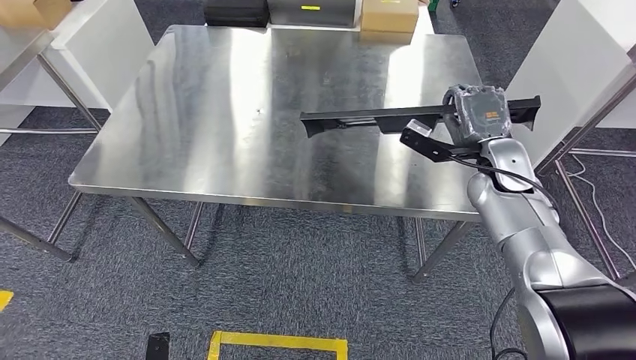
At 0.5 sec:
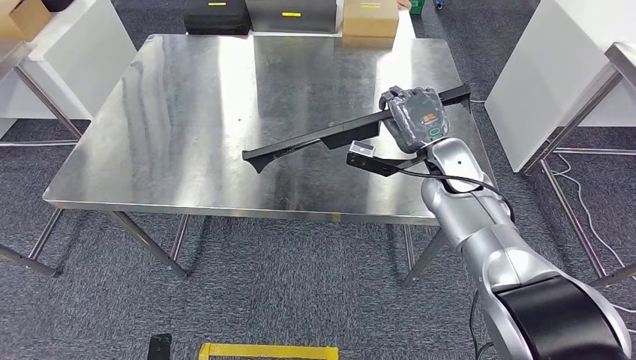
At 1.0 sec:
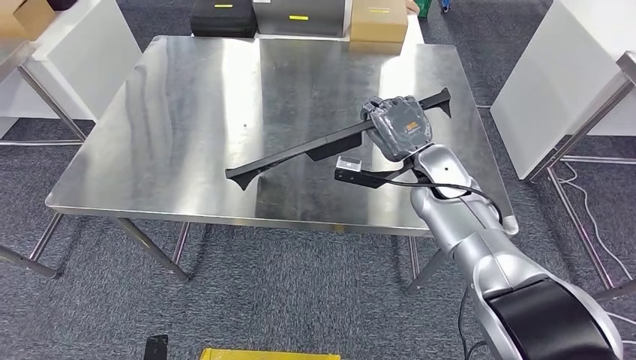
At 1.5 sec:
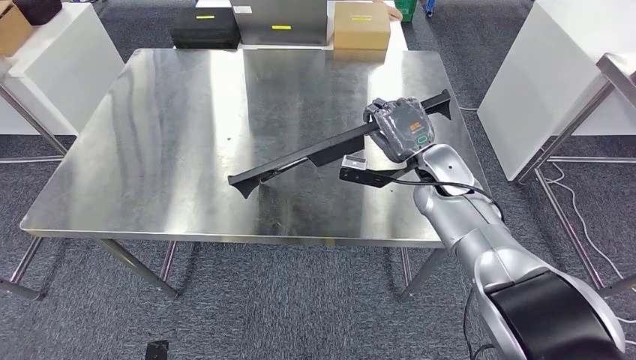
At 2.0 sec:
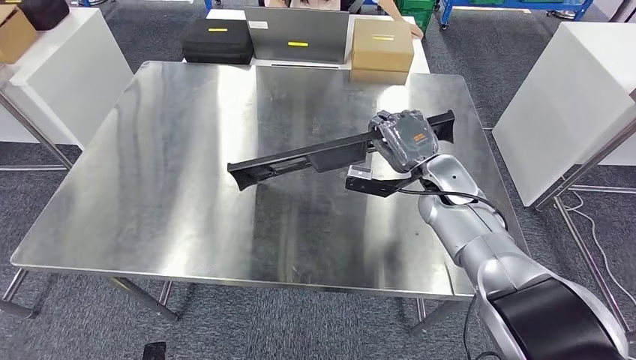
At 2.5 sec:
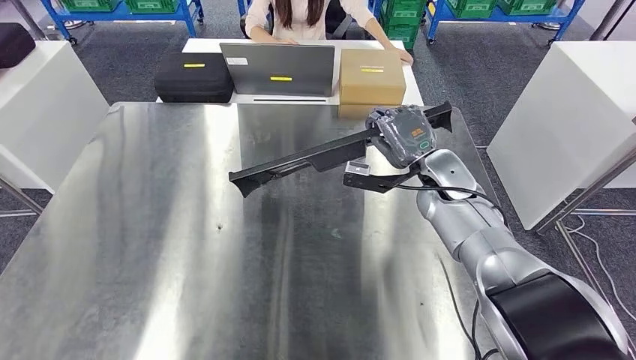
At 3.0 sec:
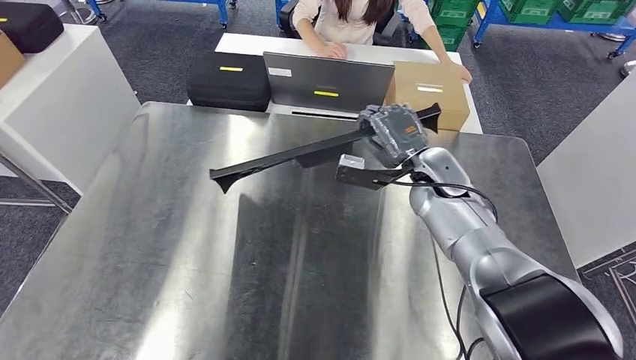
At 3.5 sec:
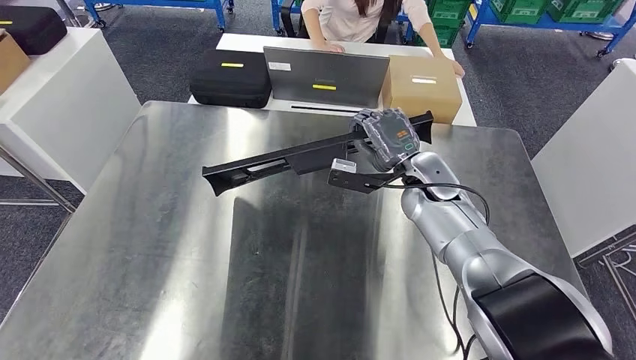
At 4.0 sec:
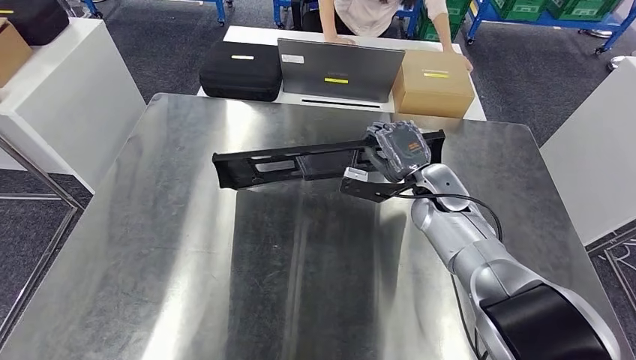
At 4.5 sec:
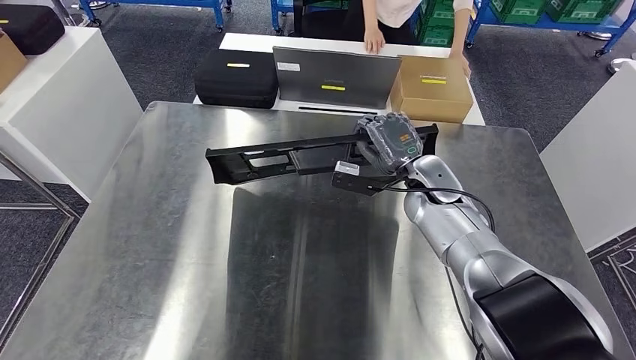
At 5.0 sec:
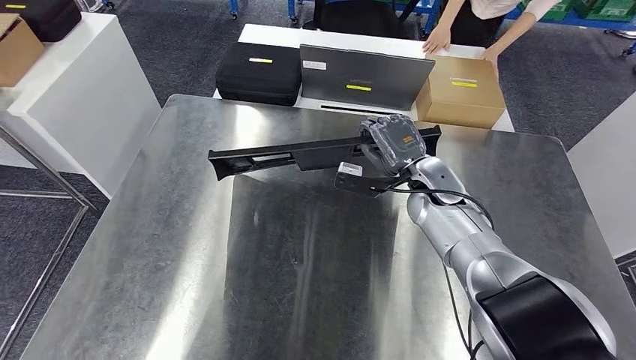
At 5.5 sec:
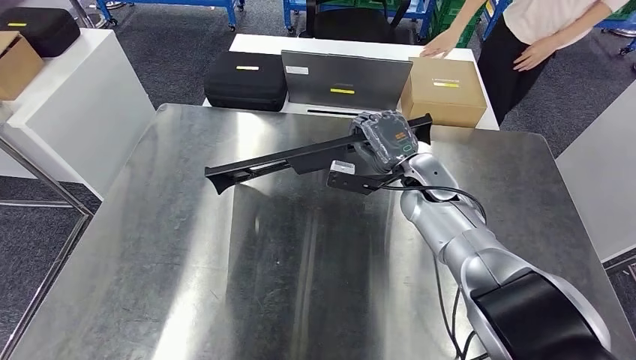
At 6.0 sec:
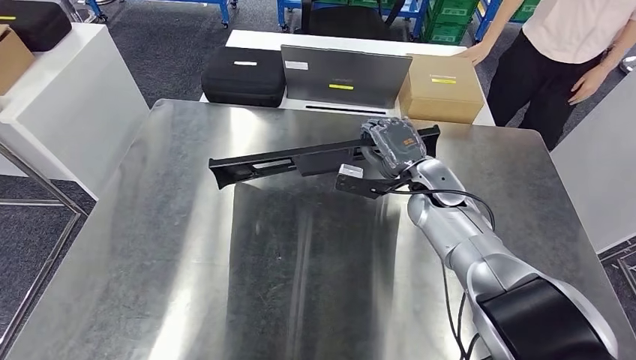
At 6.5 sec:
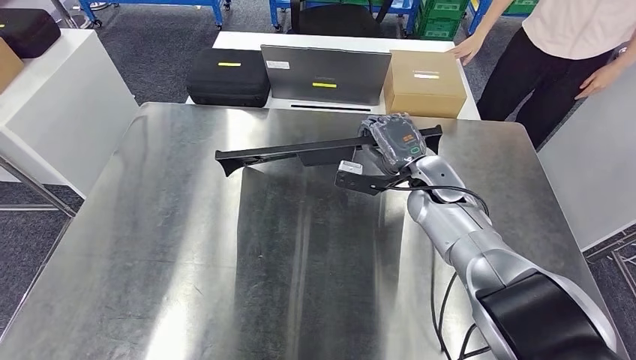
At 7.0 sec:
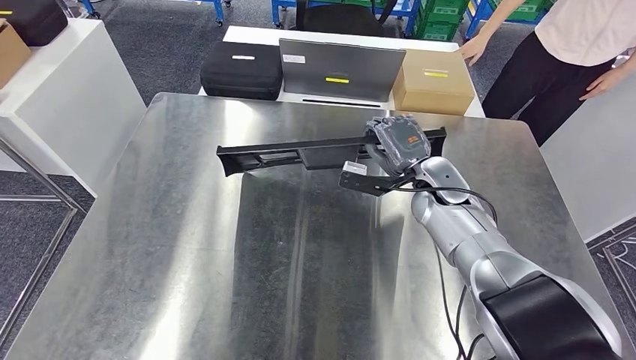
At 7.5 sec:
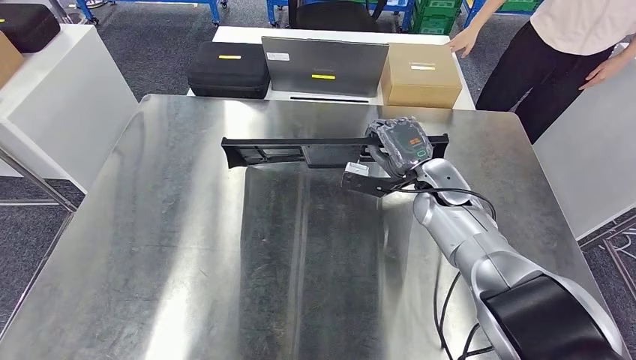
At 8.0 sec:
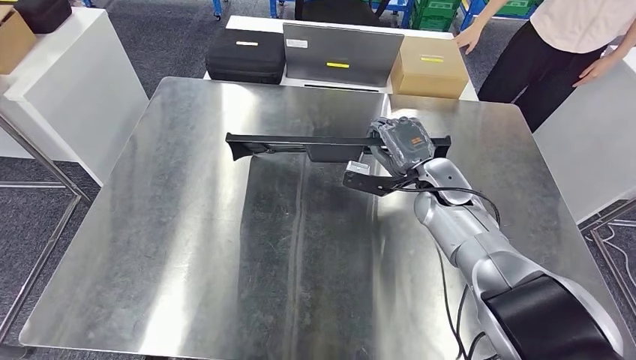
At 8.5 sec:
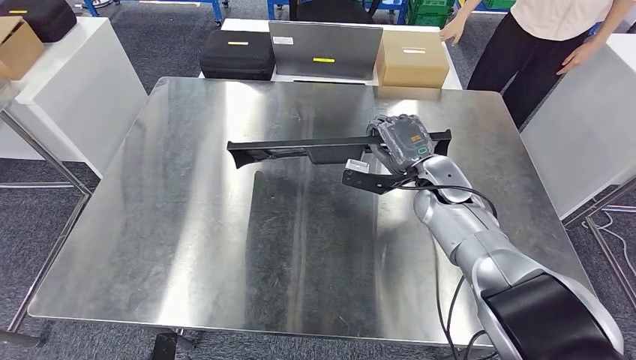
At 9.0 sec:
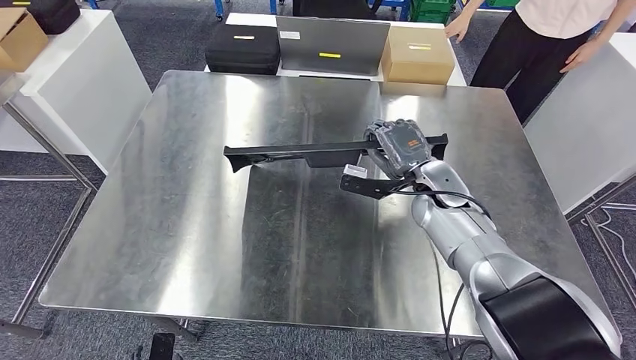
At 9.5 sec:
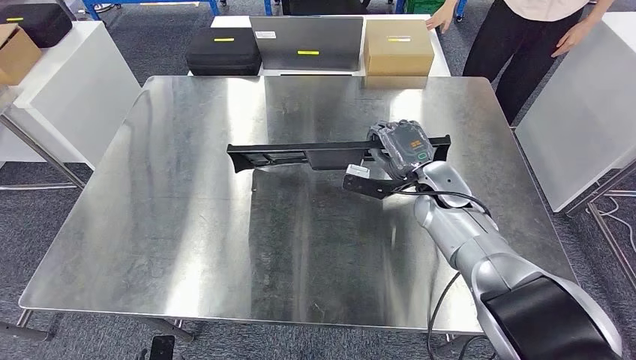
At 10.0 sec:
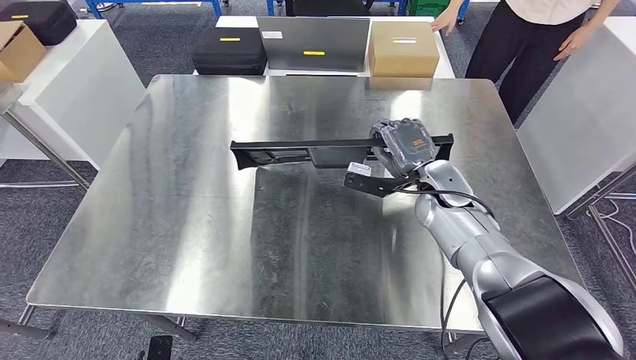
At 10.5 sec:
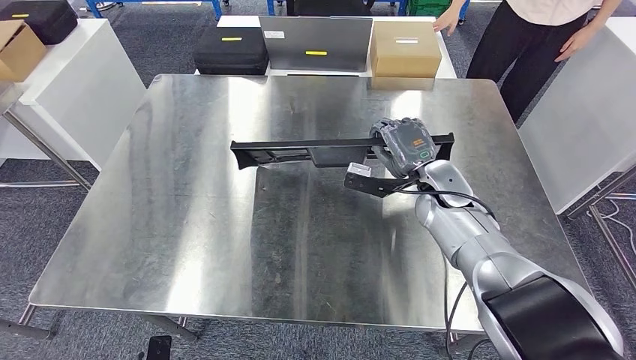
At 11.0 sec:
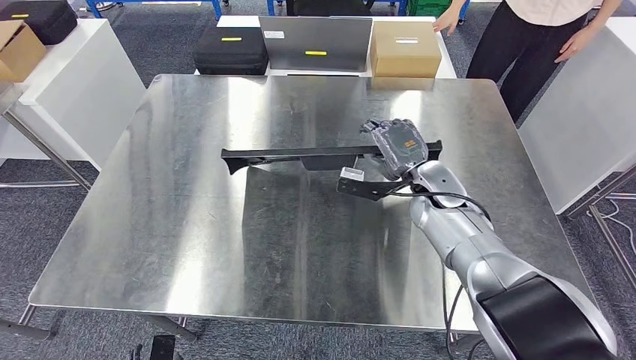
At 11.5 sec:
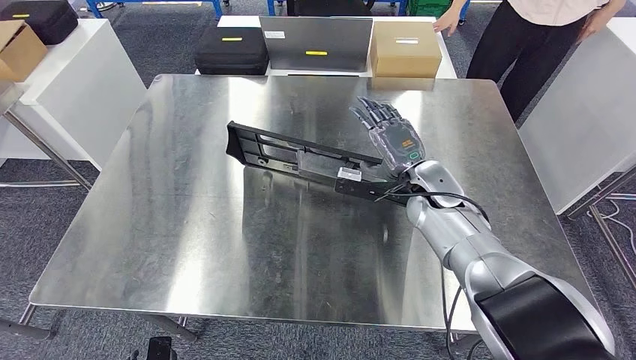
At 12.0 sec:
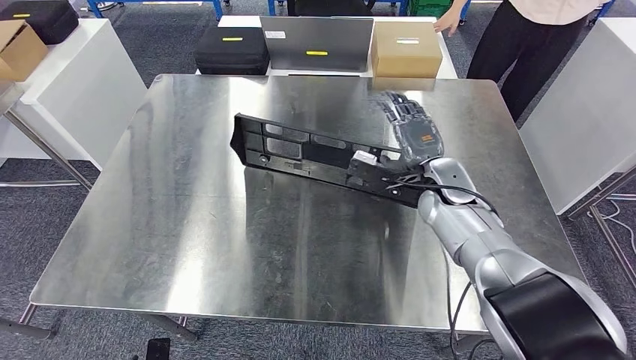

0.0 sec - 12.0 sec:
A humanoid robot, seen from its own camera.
Step, 0.0 sec - 11.0 sec: Insert the large material into the corresponding slot on the workbench.
10.0 sec - 12.0 sec: The hands make only small movements.

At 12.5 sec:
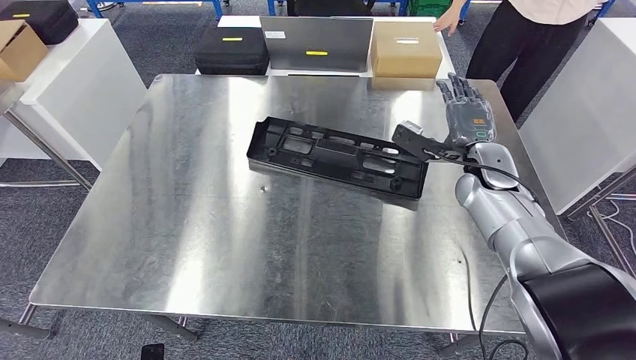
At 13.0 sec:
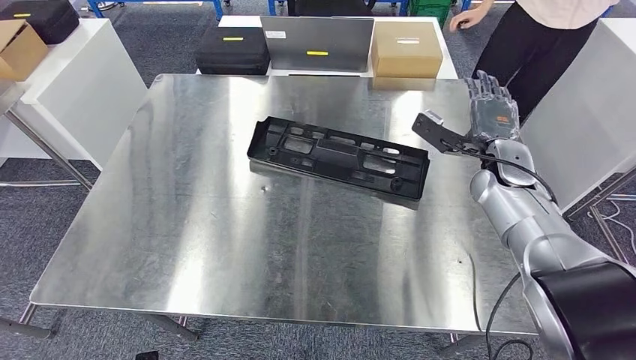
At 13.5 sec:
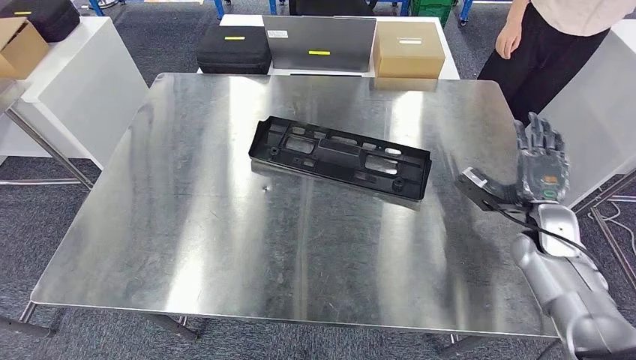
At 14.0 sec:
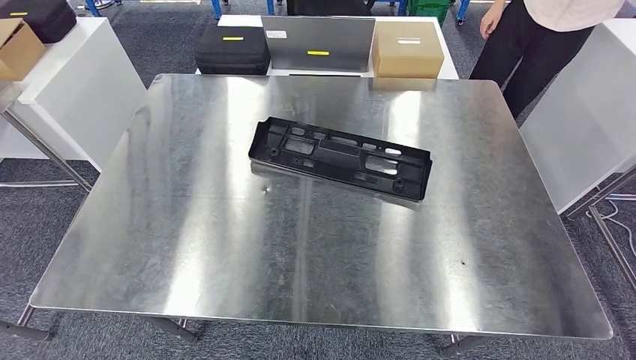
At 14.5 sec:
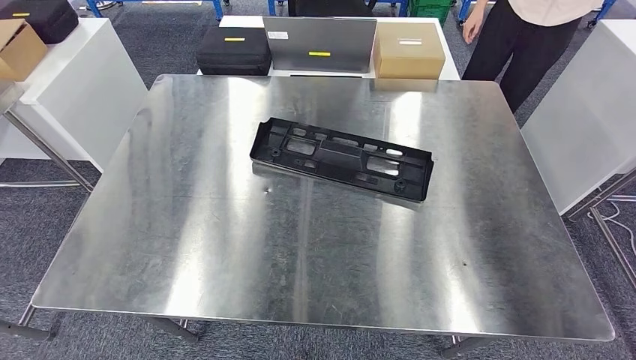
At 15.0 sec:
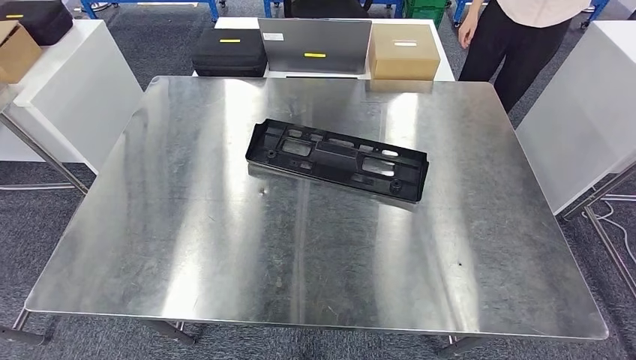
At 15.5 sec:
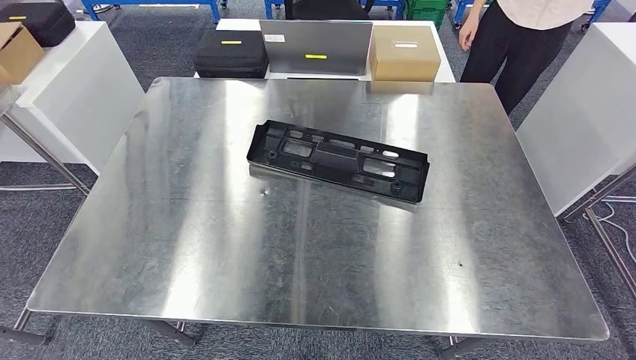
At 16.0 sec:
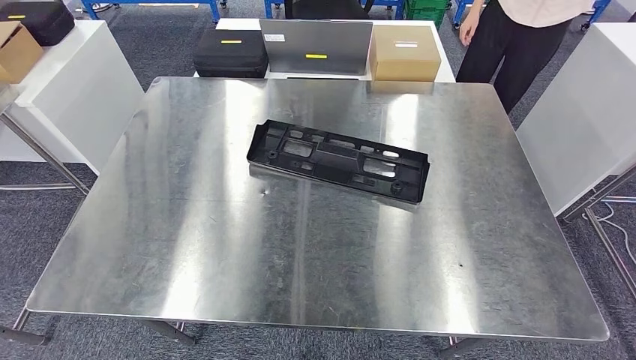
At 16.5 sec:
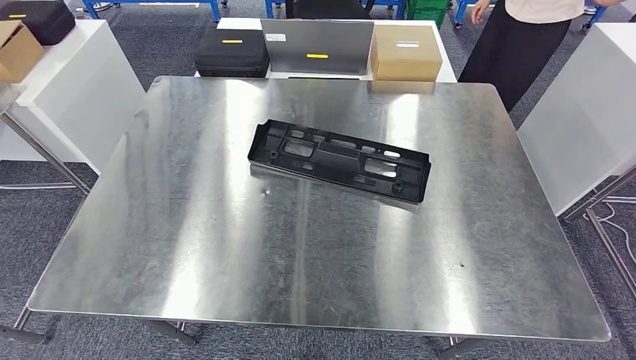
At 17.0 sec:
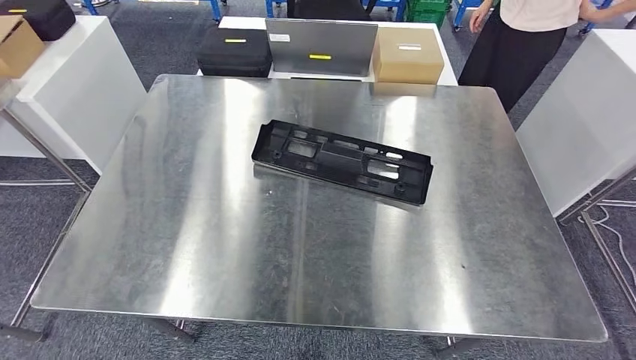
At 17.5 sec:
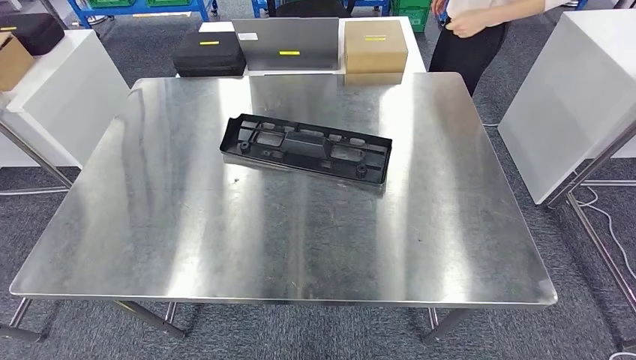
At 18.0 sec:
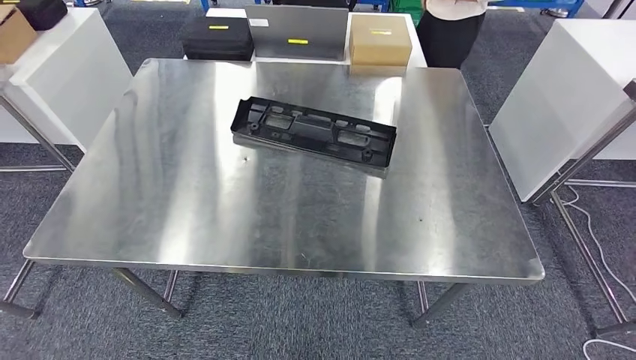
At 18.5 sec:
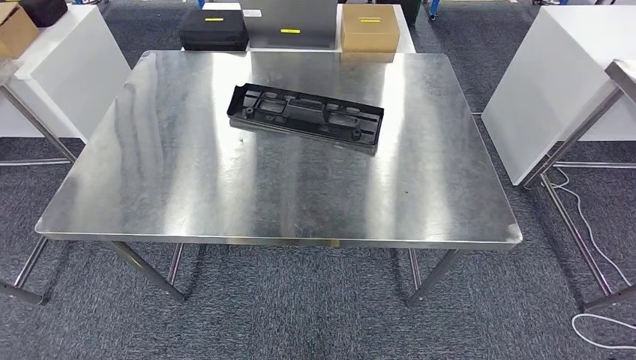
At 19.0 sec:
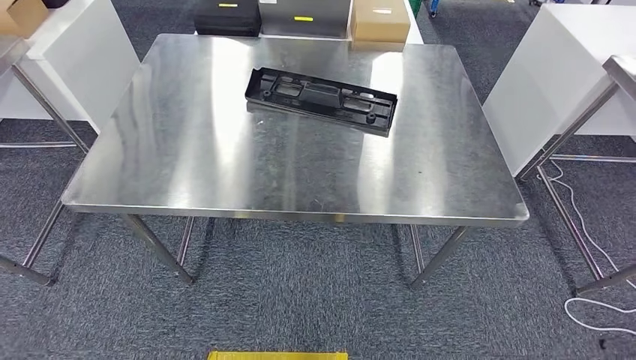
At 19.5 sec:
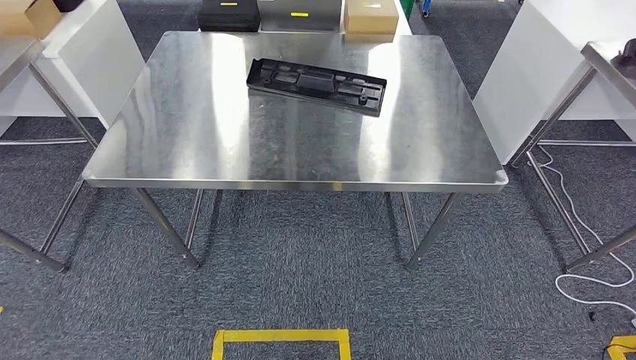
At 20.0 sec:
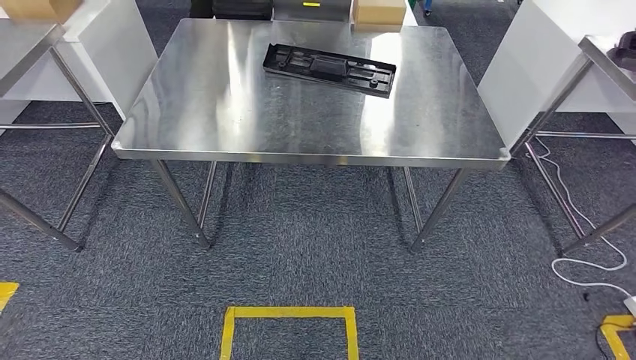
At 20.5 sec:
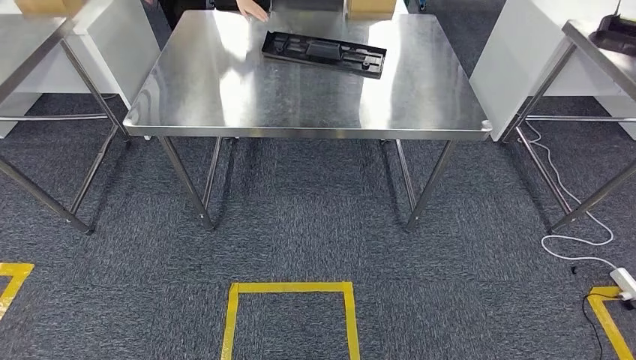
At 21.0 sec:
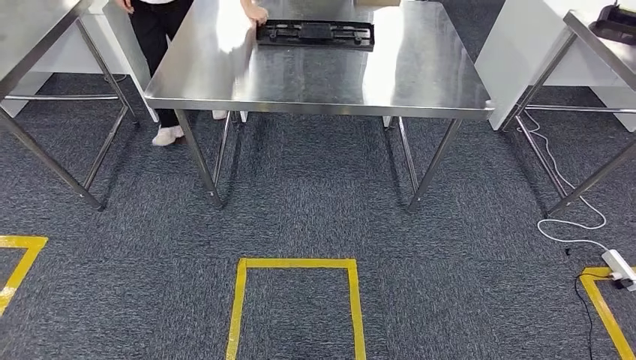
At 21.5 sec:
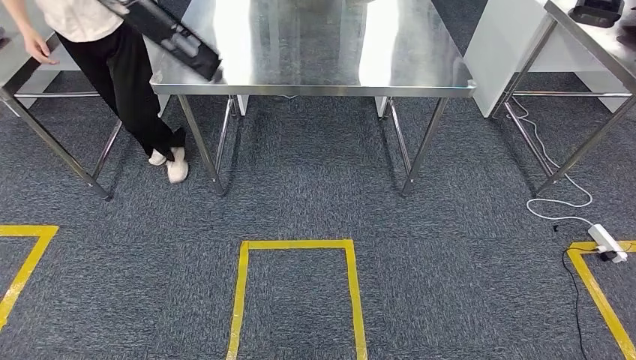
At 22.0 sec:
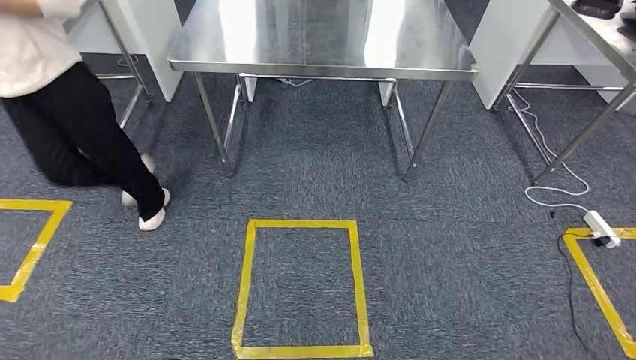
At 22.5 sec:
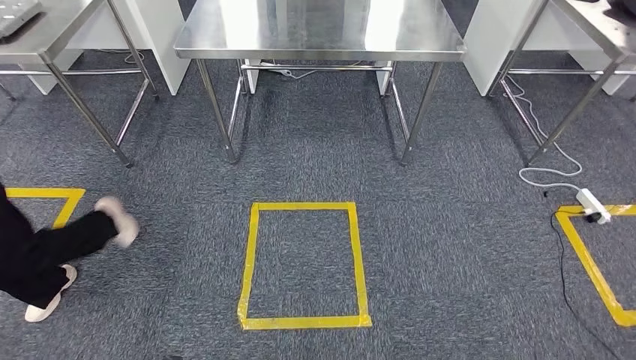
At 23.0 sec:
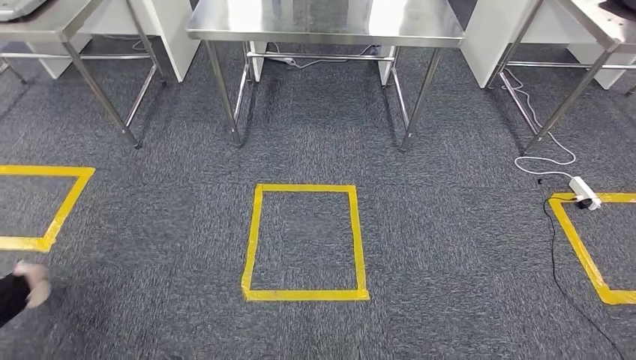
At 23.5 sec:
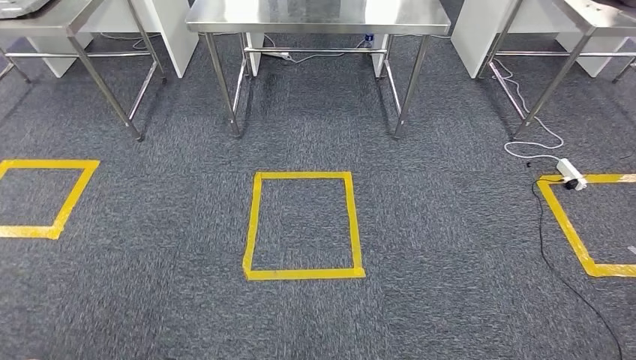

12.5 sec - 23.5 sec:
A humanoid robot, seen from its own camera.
12.5 sec - 14.5 sec: The right hand goes some 50 cm backward, to the right and upward.
14.5 sec - 16.0 sec: The right hand is displaced downward by roughly 50 cm.
